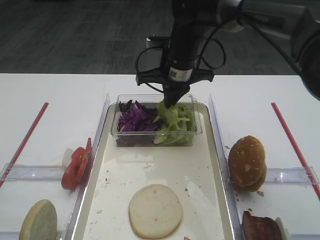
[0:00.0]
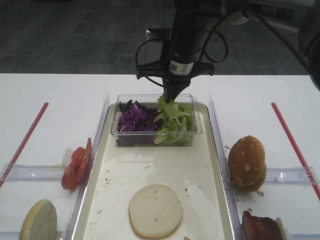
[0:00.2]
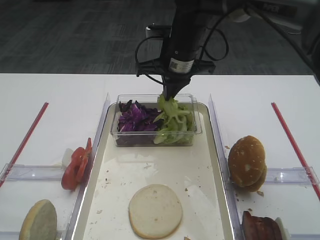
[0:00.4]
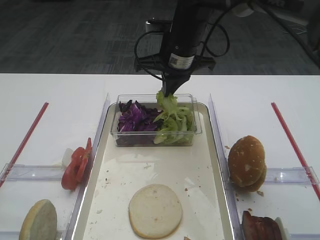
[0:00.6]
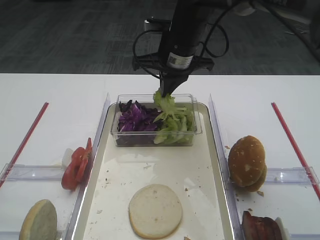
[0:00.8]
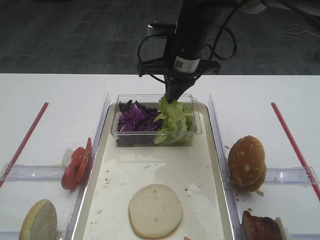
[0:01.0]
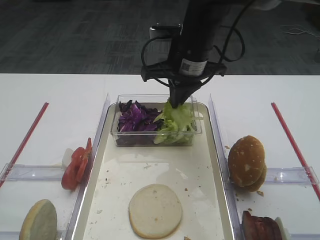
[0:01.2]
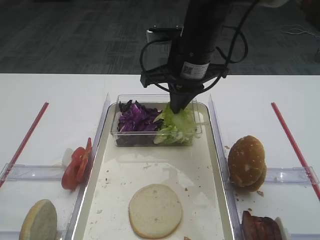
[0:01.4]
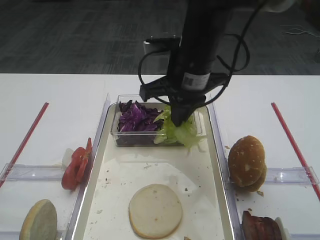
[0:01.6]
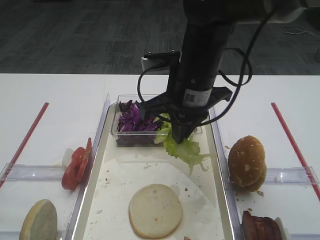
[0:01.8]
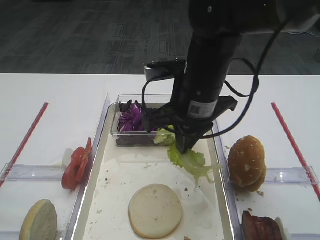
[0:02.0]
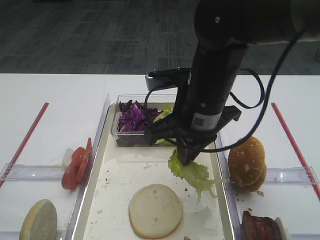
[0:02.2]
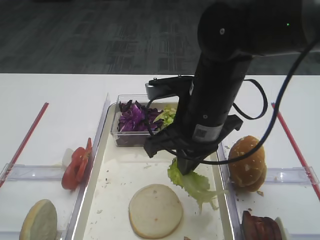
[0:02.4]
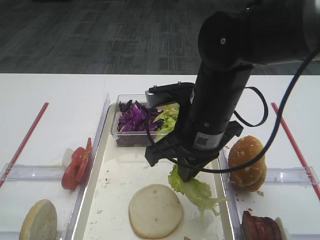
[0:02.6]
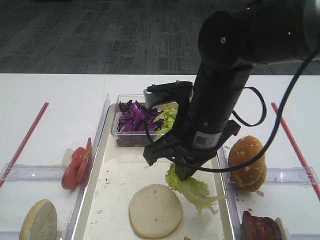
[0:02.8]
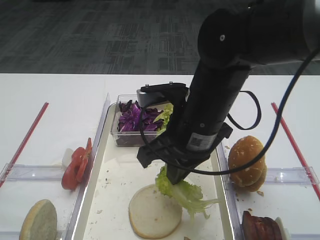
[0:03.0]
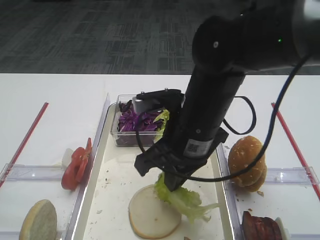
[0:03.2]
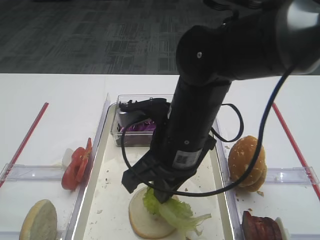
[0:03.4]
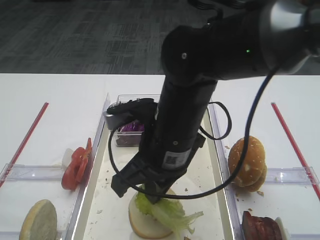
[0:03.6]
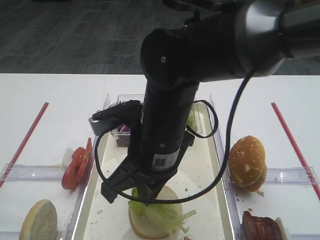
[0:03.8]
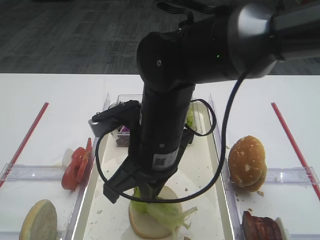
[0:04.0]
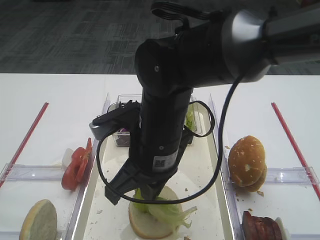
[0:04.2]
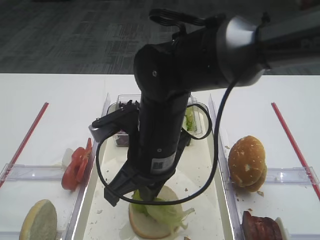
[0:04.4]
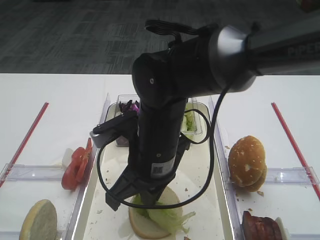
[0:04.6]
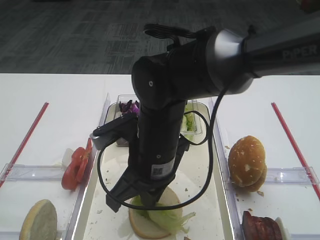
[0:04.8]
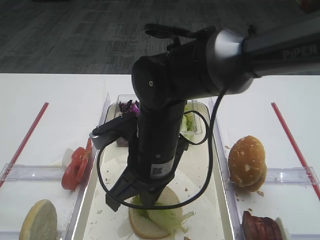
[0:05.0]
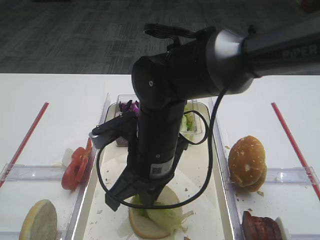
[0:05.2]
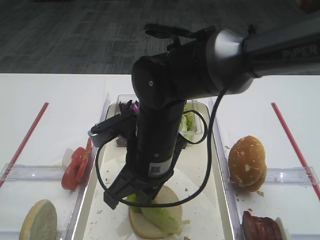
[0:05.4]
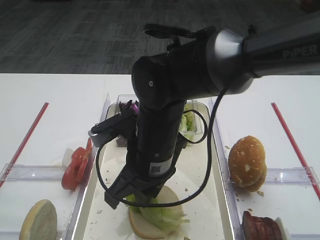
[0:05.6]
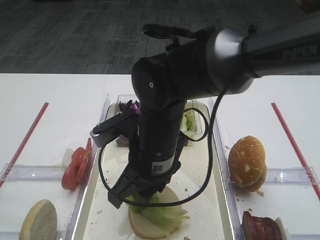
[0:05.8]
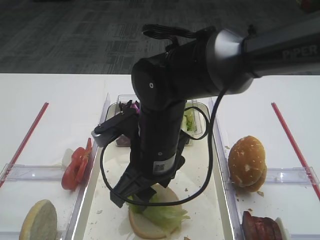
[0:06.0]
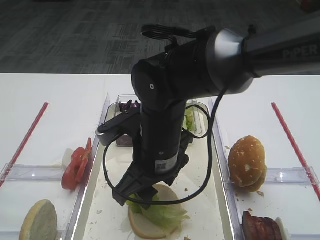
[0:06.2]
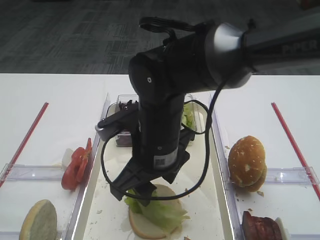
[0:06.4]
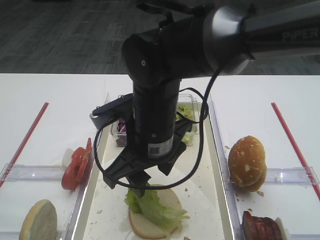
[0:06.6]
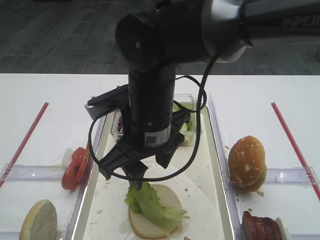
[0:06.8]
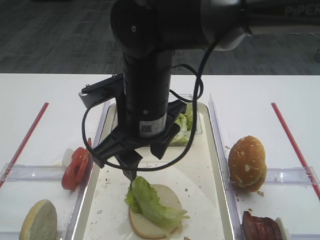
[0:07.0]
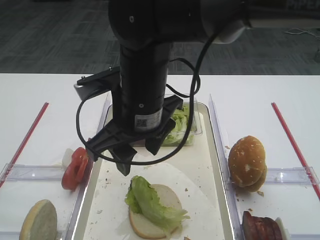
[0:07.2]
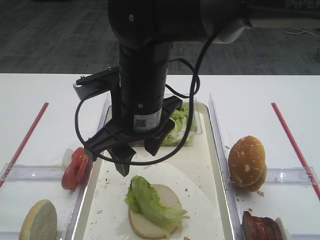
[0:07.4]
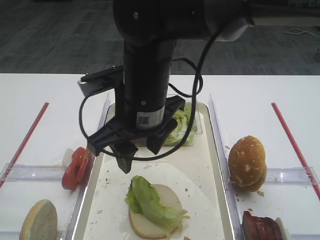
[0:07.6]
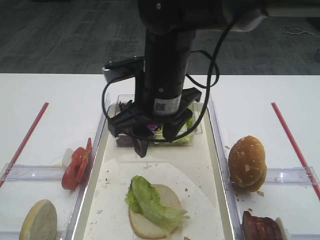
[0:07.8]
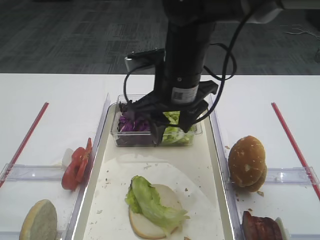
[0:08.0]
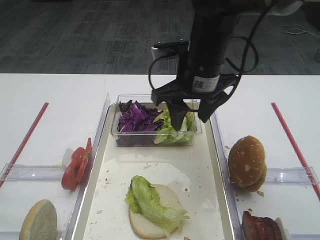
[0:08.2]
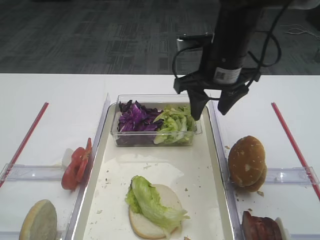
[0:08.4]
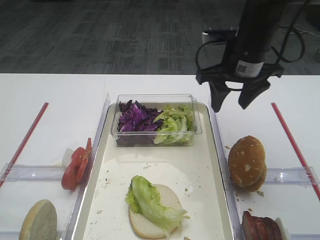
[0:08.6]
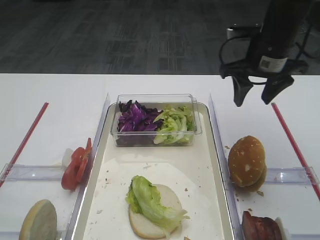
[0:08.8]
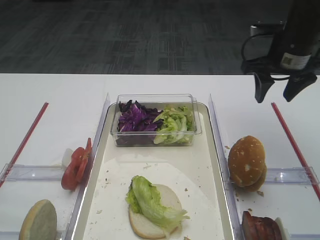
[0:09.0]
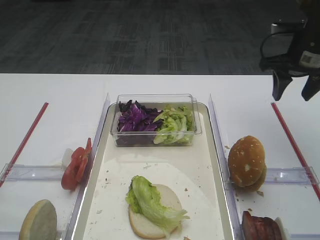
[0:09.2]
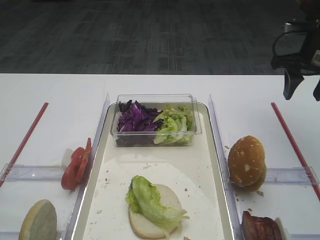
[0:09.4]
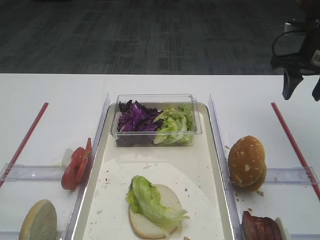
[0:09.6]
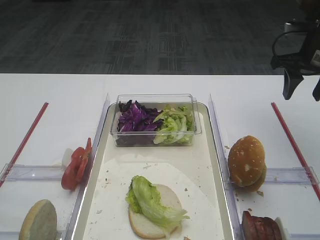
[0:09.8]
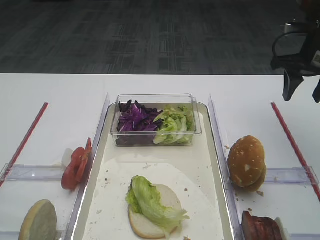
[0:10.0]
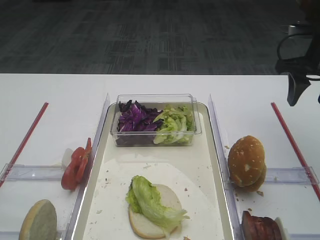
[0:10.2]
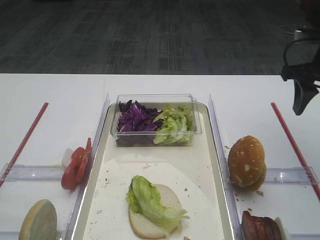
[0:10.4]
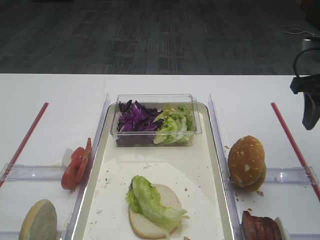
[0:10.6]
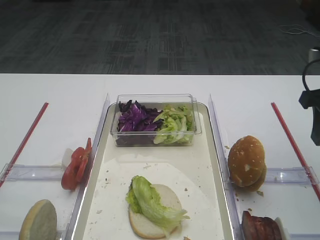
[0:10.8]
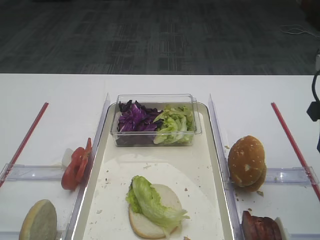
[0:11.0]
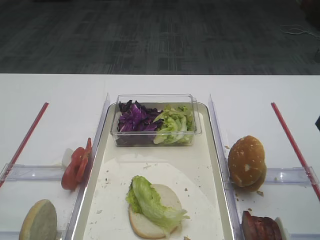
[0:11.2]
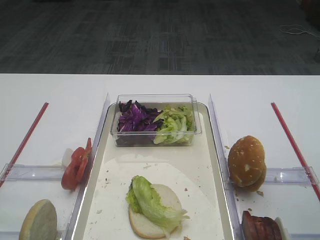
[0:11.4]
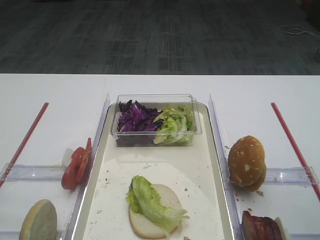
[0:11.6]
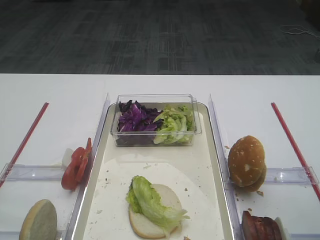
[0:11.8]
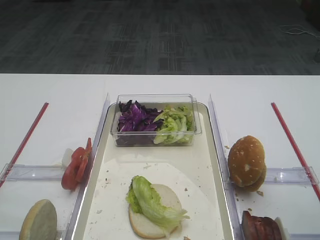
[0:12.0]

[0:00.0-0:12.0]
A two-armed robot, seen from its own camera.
Step, 0:01.0 to 0:07.6: Place the lettuce leaf on the bread slice with the right gripper.
0:00.0 to 0:01.6: The right gripper moves backward, roughly 10 cm.
0:01.6 to 0:03.0: The right gripper shifts some 10 cm backward.
0:03.0 to 0:04.4: The right gripper is displaced to the left by about 5 cm.
0:04.4 to 0:06.0: The right gripper opens its fingers.
0:06.0 to 0:07.6: The right gripper shifts roughly 5 cm upward.
0:07.6 to 0:09.0: The right gripper heads to the right and forward, covering some 30 cm.
0:09.0 to 0:10.4: The right gripper moves to the right, about 5 cm.
0:10.4 to 0:12.0: The right gripper moves backward, about 20 cm.

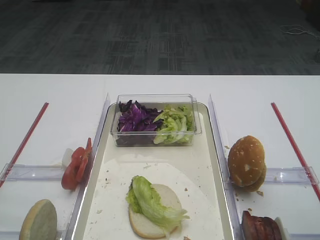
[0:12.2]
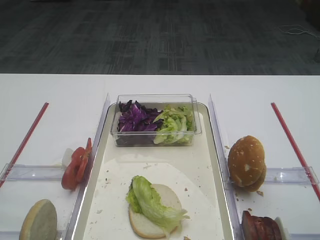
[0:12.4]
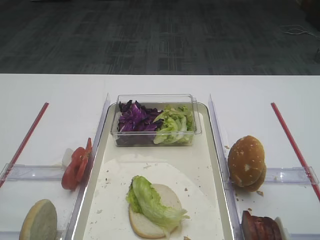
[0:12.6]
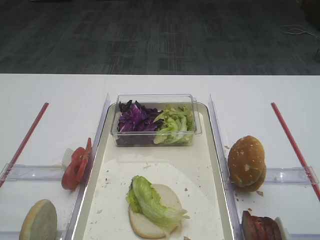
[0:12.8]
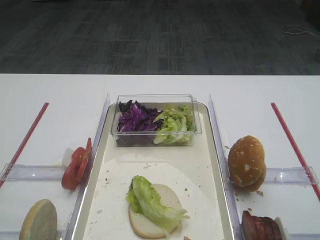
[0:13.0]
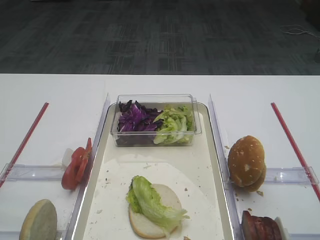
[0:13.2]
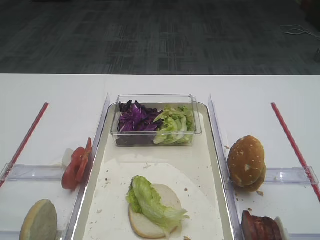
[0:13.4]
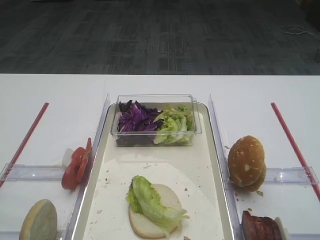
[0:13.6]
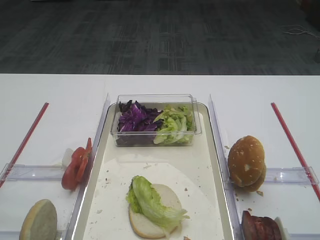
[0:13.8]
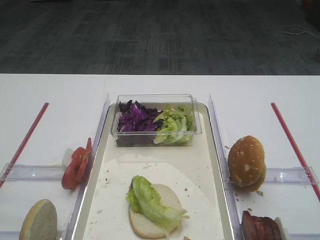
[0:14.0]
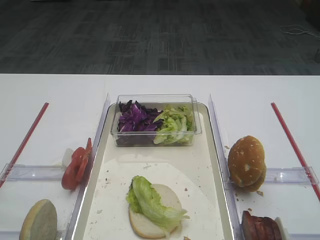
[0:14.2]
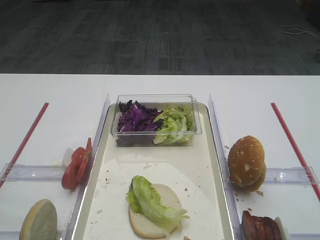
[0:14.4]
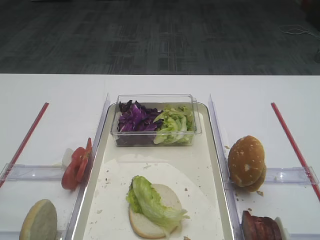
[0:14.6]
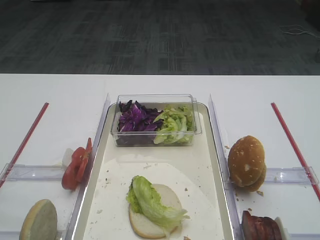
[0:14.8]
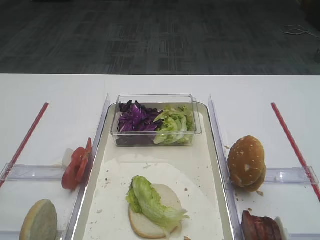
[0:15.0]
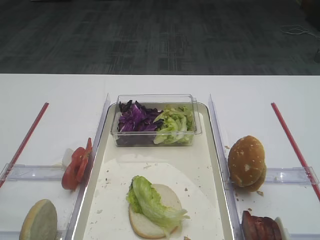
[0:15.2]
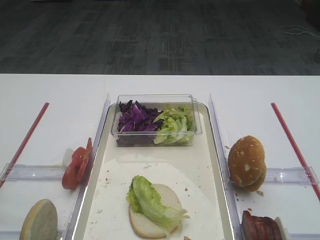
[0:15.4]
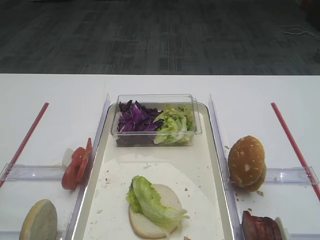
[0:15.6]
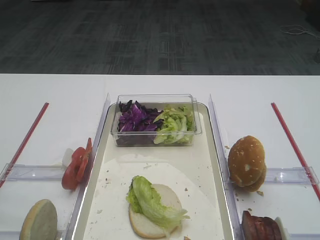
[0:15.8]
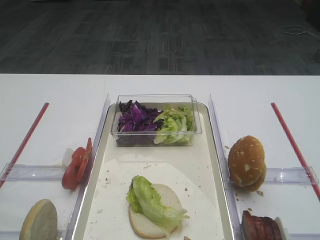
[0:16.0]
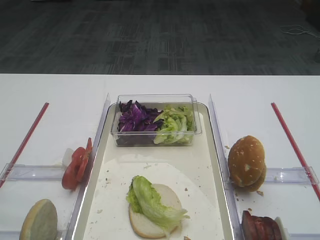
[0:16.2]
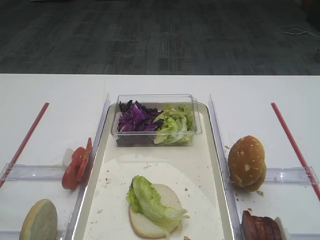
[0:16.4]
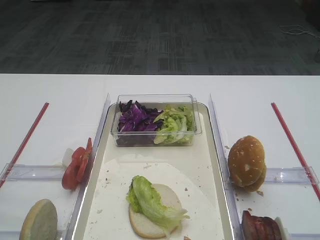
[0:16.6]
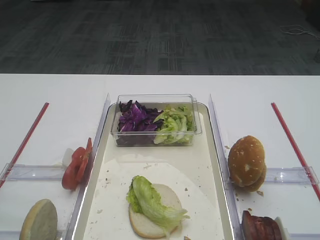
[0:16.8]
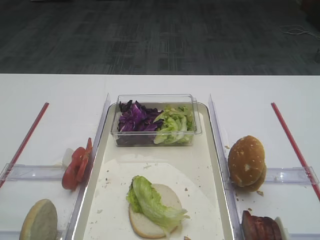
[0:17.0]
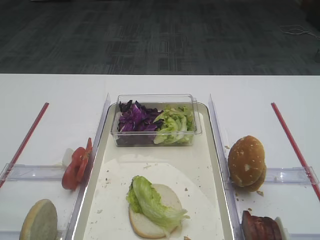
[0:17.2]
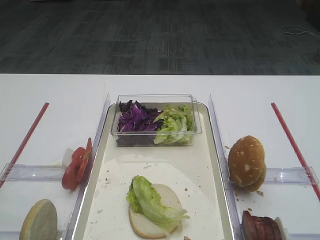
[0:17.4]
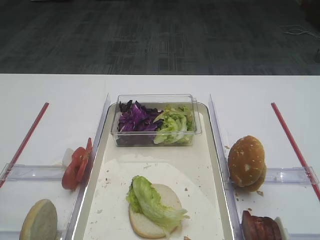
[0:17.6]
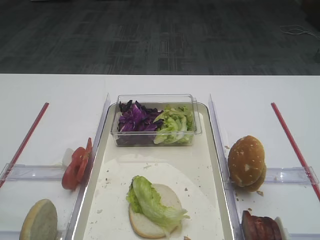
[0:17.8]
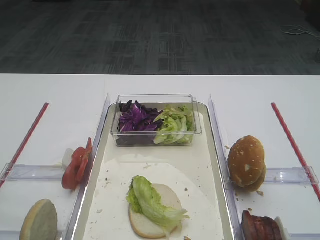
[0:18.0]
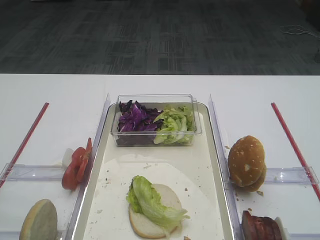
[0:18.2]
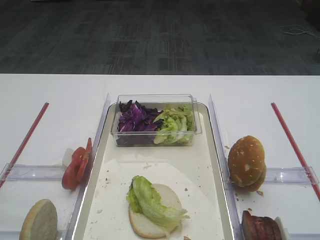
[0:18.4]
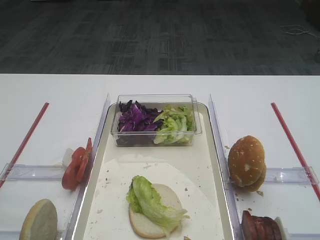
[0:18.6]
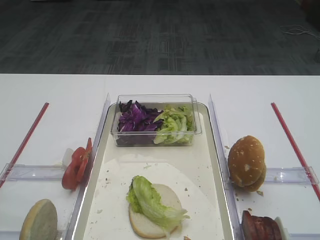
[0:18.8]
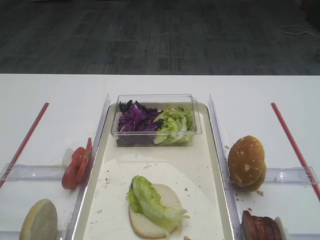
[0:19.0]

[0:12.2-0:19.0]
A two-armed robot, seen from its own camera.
0:15.0 to 0:19.0: Both grippers stay about where they are.

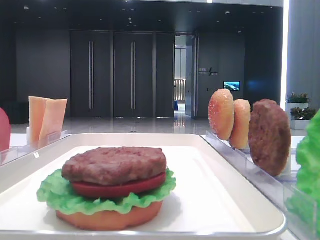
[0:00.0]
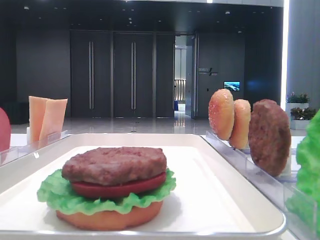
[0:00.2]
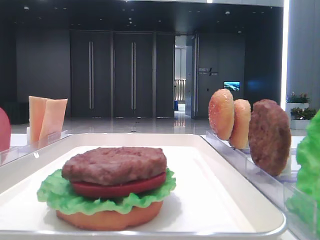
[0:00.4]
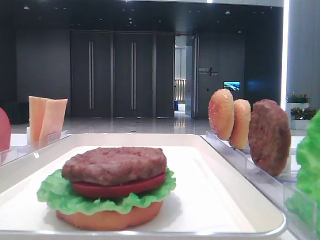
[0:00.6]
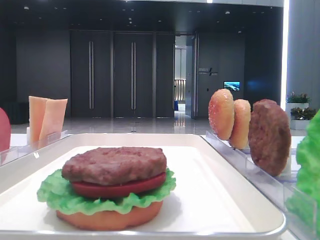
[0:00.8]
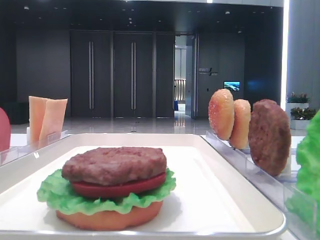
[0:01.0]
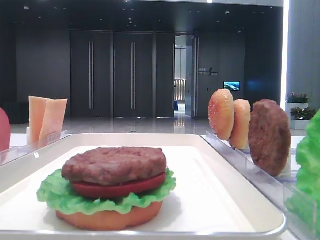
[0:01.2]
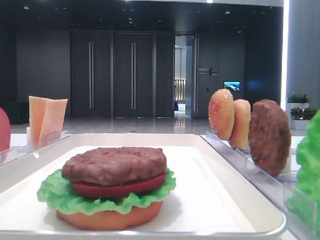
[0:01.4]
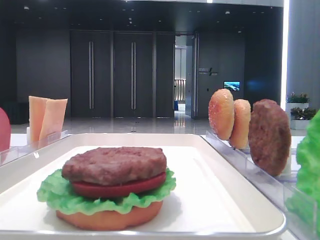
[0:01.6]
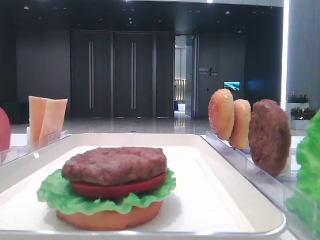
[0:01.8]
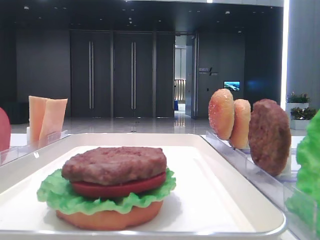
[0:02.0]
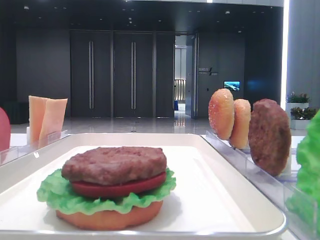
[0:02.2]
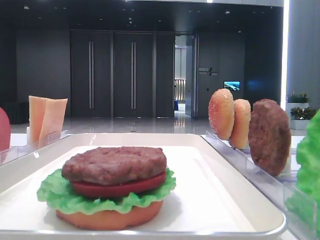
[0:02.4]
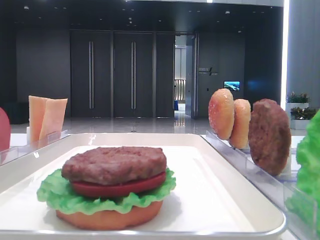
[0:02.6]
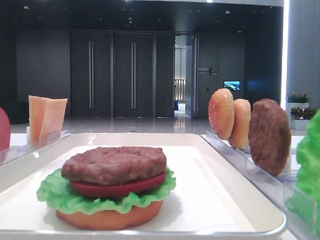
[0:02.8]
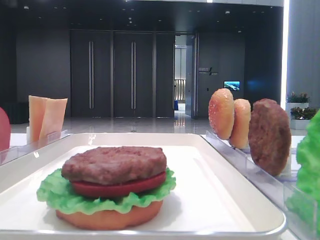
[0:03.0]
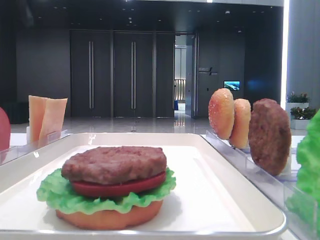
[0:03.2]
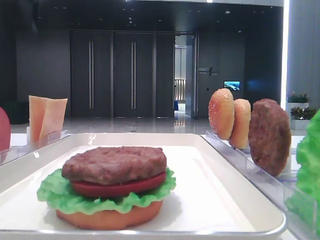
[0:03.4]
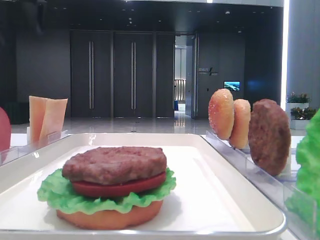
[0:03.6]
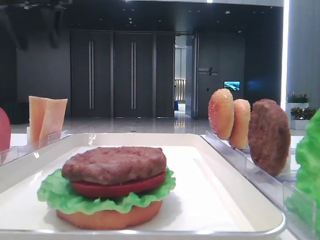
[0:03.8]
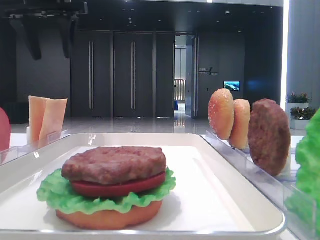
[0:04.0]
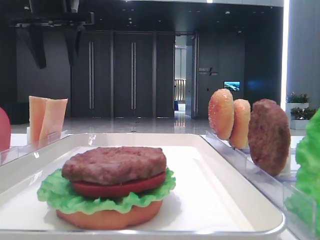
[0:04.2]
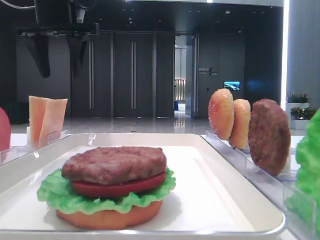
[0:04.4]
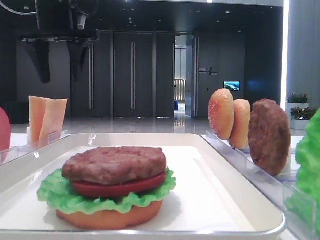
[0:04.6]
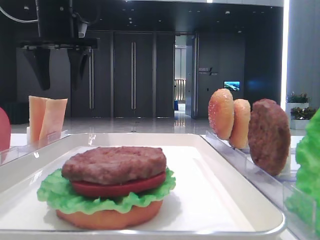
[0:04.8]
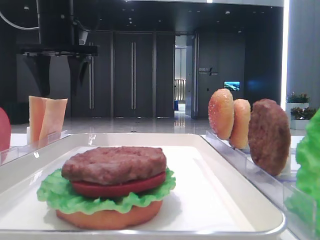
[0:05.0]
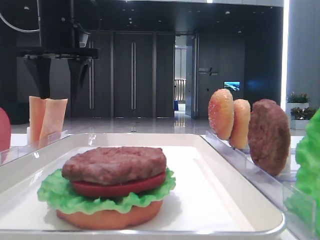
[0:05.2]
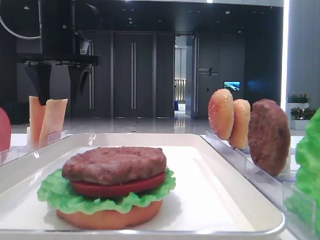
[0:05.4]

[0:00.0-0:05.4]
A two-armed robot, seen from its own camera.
0:01.4 to 0:02.8: The left gripper goes approximately 30 cm forward.
0:02.8 to 0:04.0: The left gripper moves forward, to the right and downward, some 15 cm.
0:04.0 to 0:05.4: The left gripper heads downward, covering some 10 cm.
